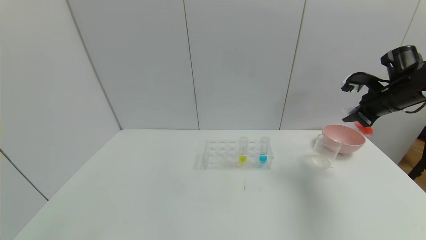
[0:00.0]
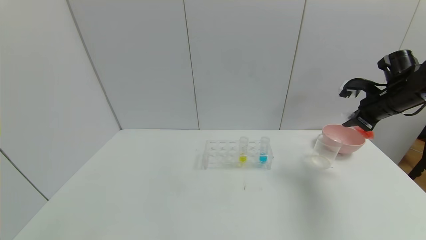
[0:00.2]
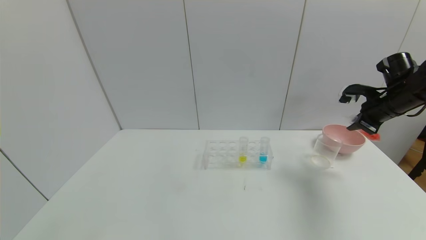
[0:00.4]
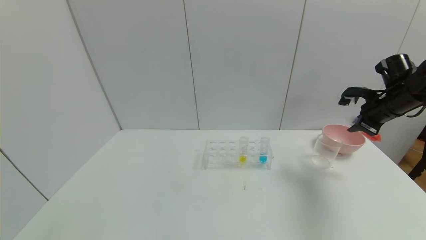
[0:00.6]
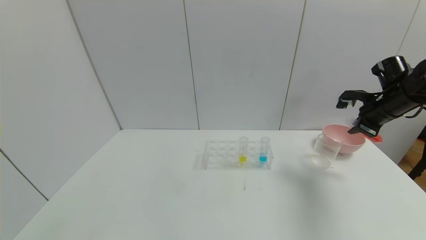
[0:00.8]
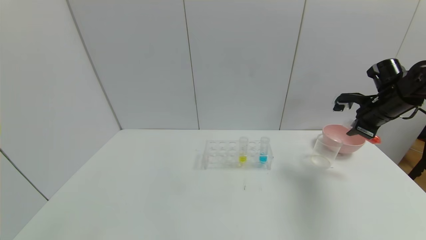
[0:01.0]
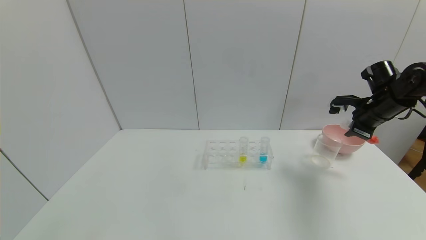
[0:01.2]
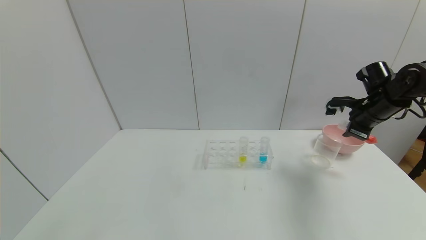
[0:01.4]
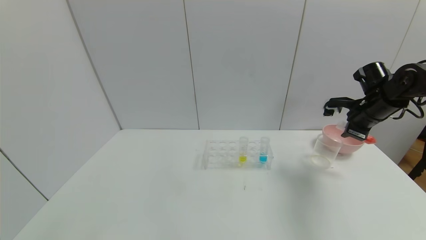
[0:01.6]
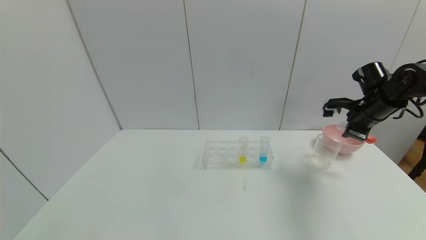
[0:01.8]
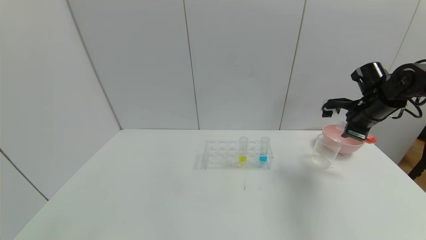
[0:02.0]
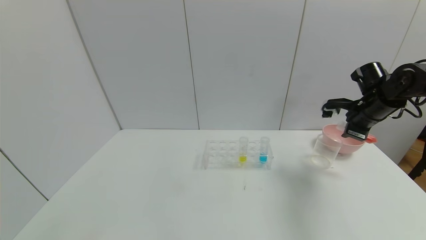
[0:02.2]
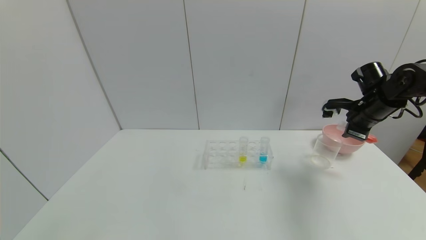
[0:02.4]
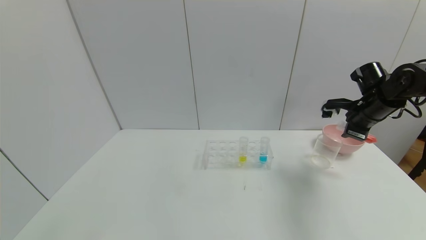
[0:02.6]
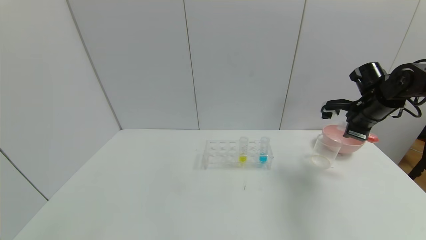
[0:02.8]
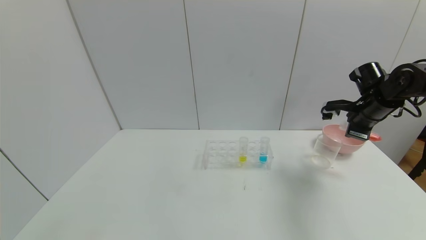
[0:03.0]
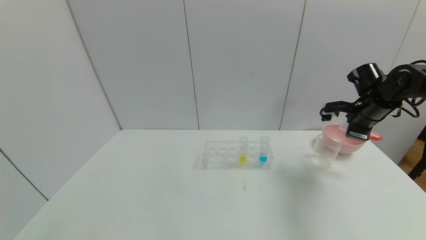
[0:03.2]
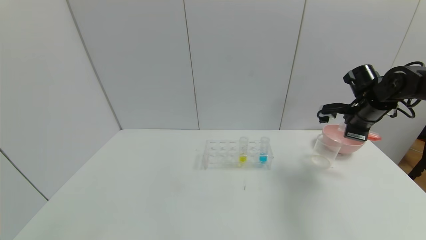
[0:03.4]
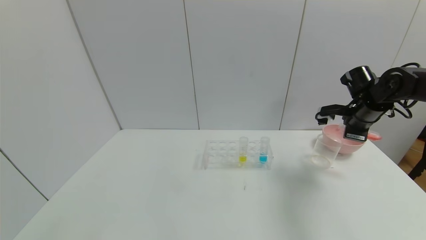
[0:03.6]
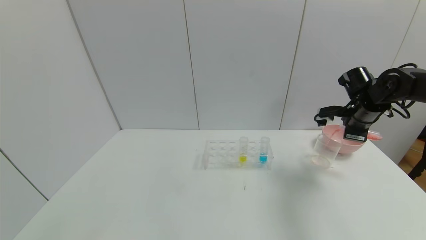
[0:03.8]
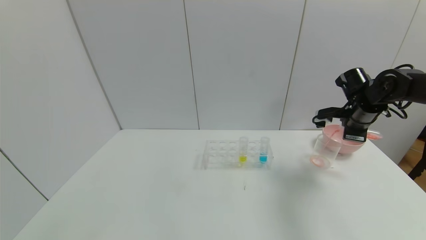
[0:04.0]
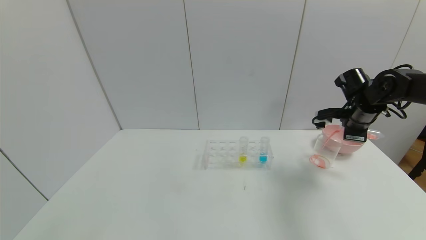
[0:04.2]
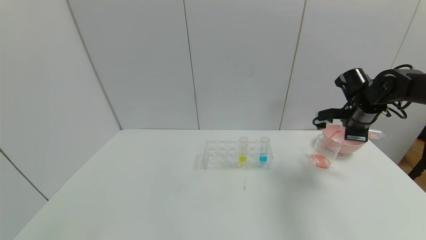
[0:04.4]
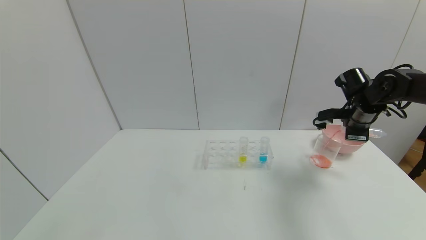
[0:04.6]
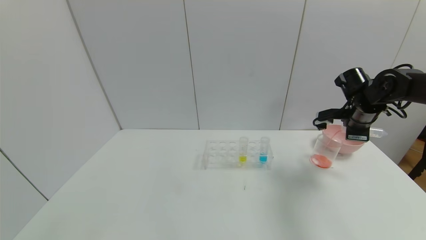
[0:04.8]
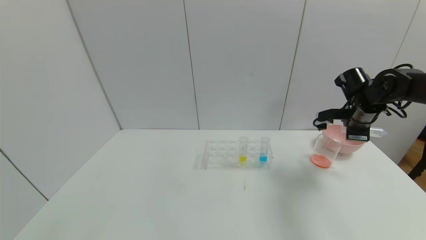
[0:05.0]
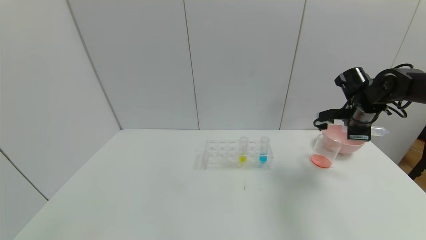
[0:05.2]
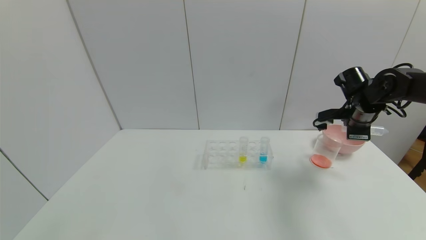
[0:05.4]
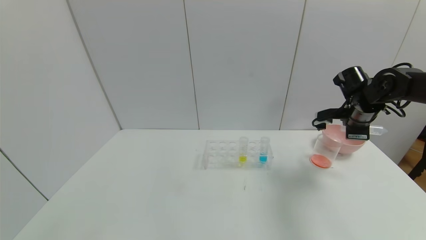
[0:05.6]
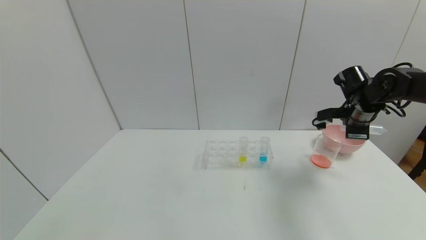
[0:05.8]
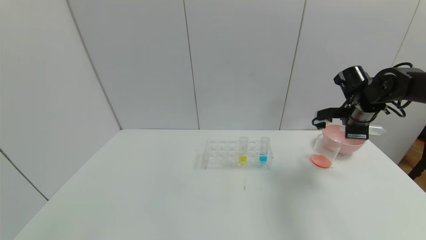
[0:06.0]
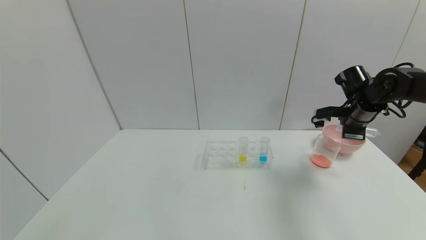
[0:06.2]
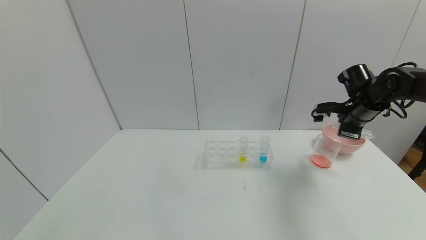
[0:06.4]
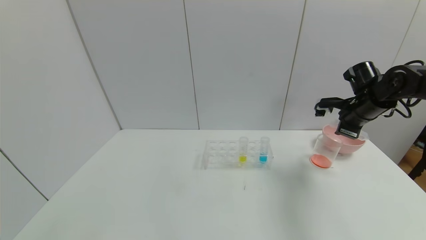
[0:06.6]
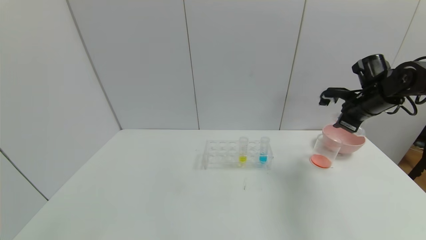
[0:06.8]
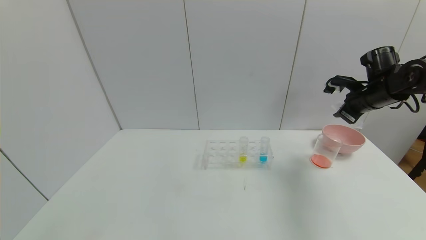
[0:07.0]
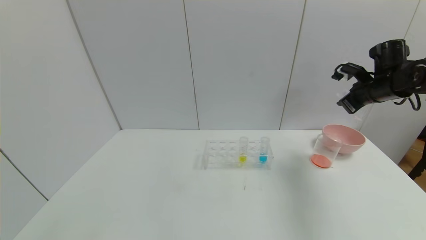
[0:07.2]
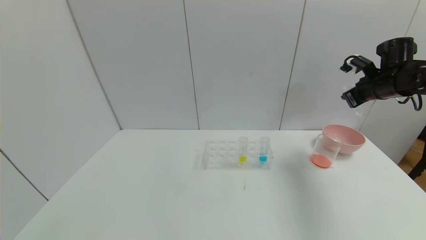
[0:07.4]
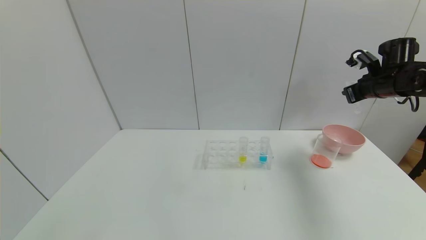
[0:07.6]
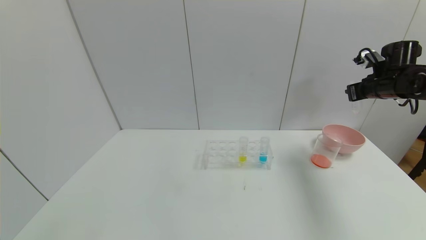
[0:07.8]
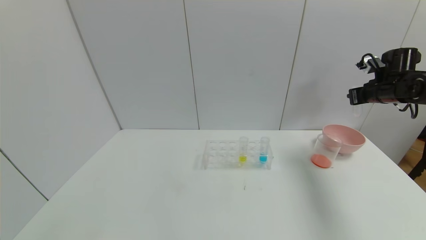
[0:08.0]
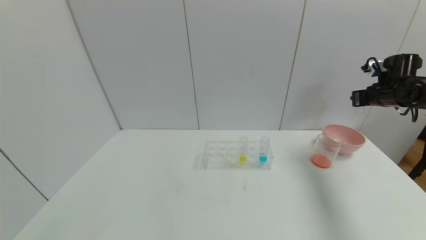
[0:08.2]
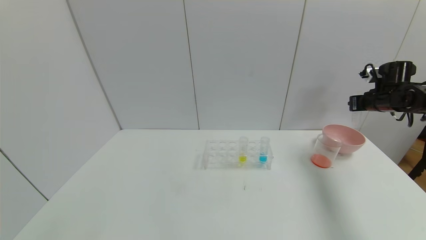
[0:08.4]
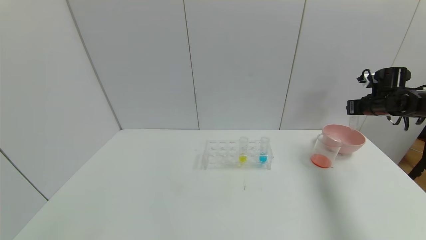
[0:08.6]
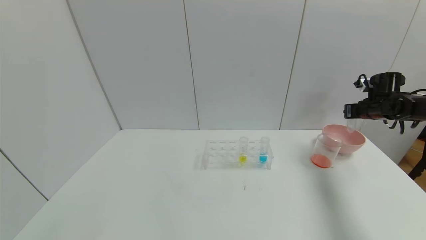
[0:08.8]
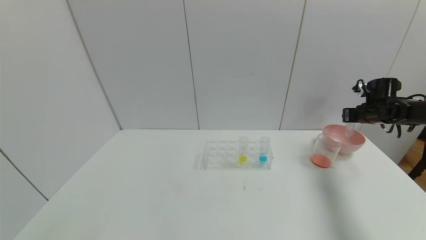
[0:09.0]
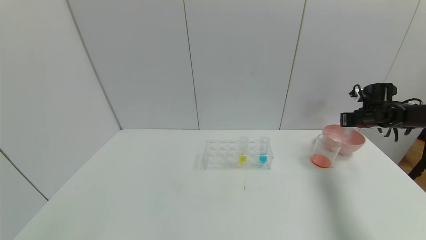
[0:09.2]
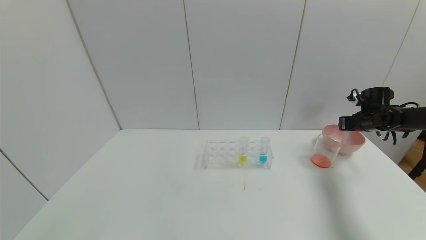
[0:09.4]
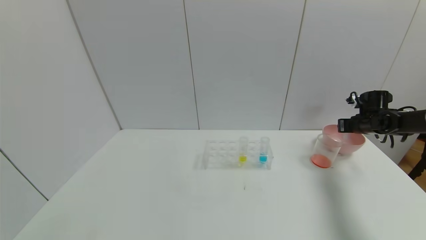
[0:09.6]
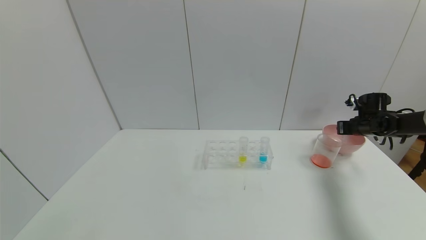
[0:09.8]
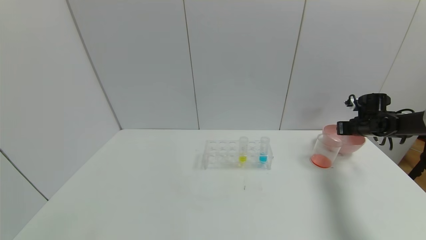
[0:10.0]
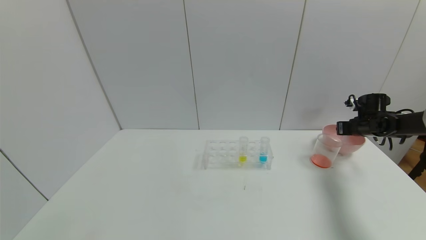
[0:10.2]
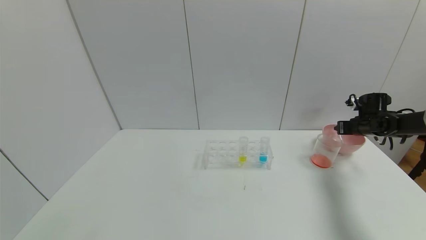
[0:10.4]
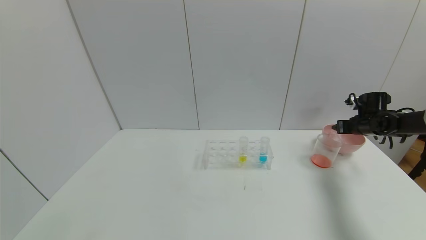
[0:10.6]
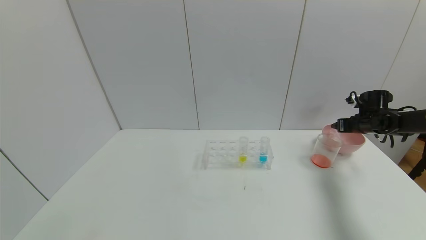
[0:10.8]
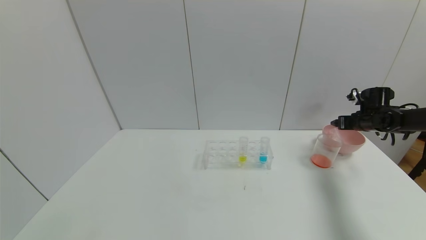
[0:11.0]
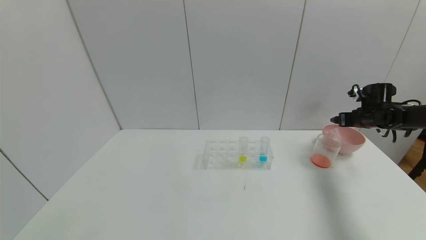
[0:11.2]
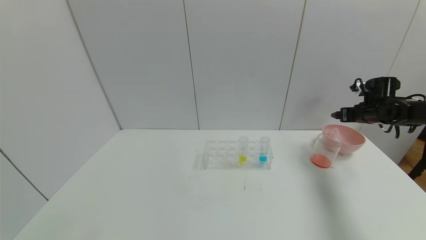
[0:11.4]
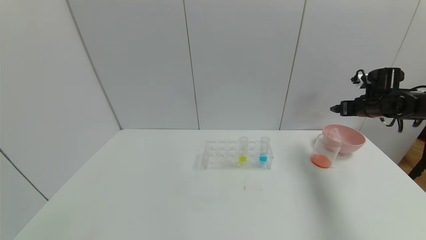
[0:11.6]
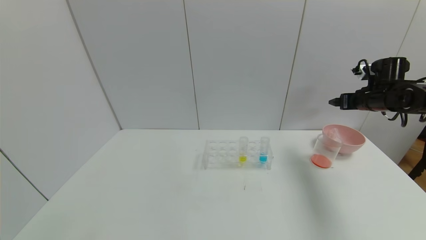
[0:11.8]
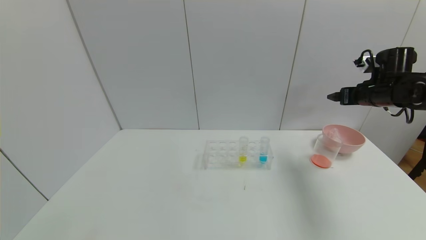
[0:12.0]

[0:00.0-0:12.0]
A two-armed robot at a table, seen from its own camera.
Task of the whole recording: pick up the test tube with yellow pigment and the test tube with red pigment by grippers and pour them into the beaker.
Step, 0:00.0 to 0:05.6: Pour the red reagent into the graduated cylinder with the right gripper.
Step, 0:05.8 to 0:10.6: Place the test tube into the bowl with the right gripper.
0:01.6 to 0:03.0: The grippers make only small movements.
0:03.0 to 0:04.4: The grippers move only a little.
0:04.4 to 0:06.0: Both grippers stay put.
0:06.0 to 0:07.6: The right gripper is displaced to the right and upward by about 10 cm.
0:07.6 to 0:09.0: The right gripper travels downward and to the right by approximately 10 cm.
0:09.0 to 0:10.4: The right gripper opens its fingers.
0:10.4 to 0:12.0: The right gripper travels upward, to the left and backward by approximately 15 cm, and opens up.

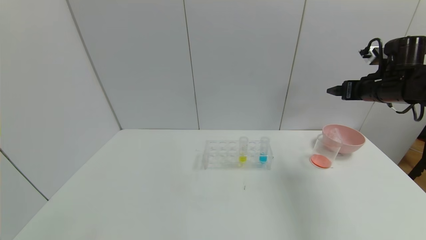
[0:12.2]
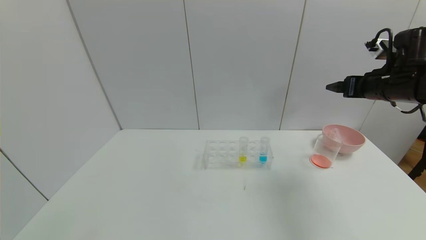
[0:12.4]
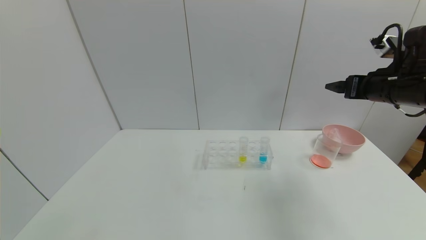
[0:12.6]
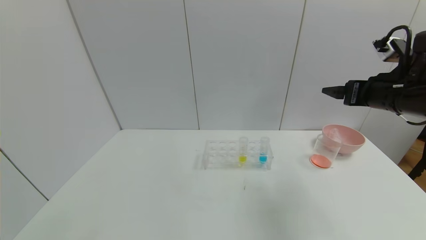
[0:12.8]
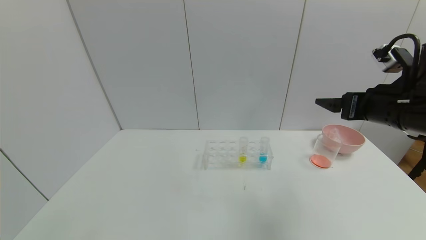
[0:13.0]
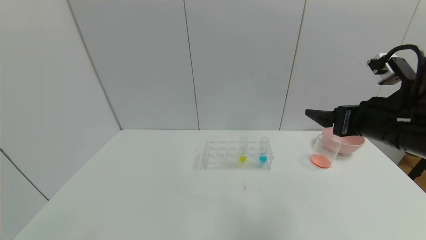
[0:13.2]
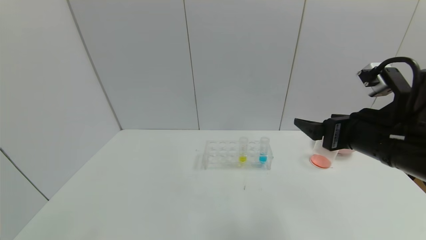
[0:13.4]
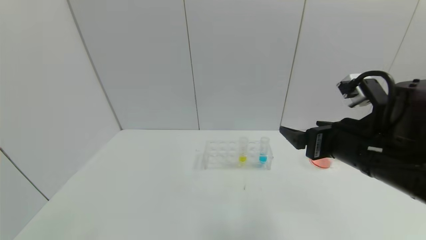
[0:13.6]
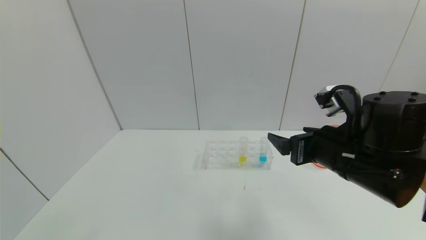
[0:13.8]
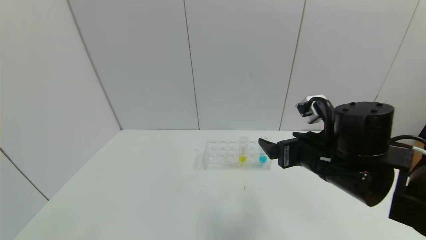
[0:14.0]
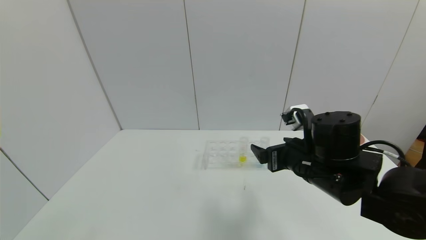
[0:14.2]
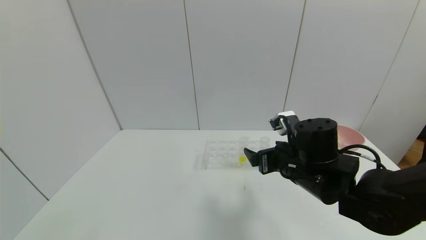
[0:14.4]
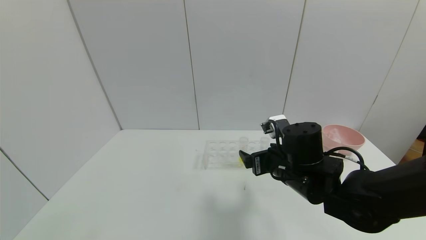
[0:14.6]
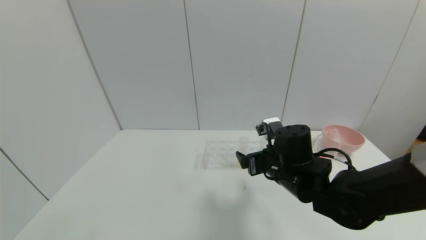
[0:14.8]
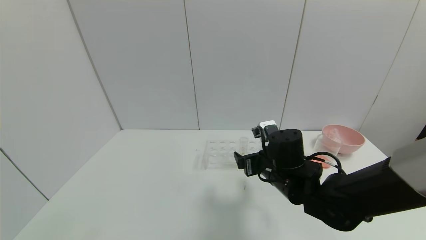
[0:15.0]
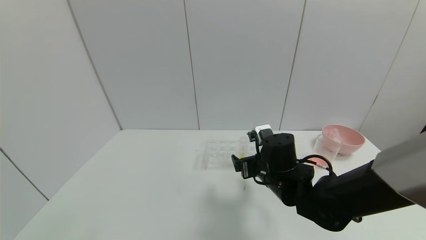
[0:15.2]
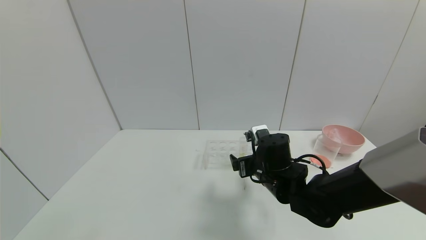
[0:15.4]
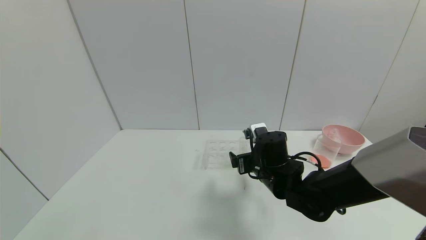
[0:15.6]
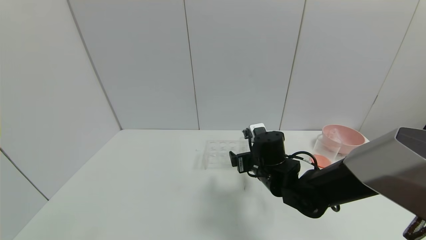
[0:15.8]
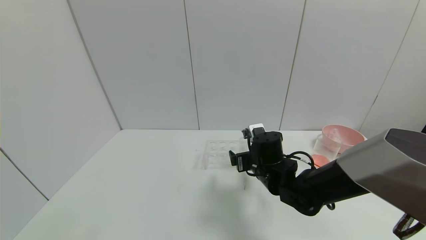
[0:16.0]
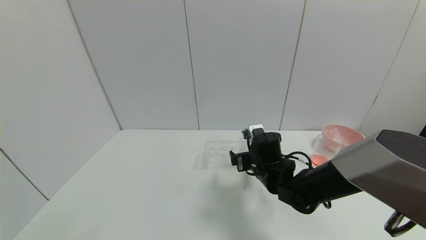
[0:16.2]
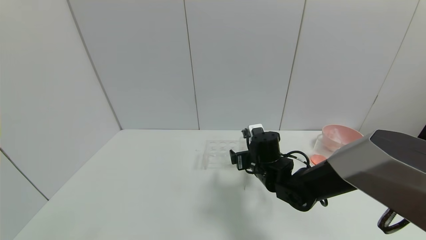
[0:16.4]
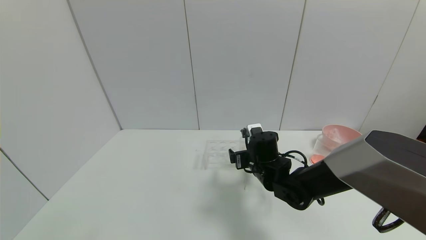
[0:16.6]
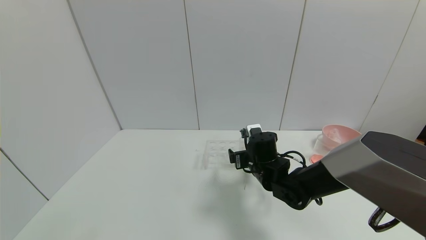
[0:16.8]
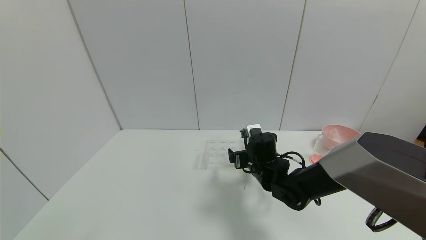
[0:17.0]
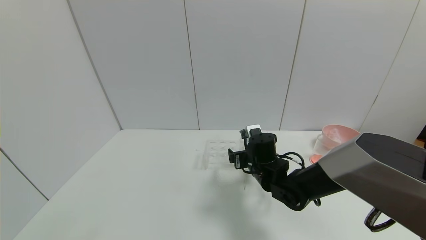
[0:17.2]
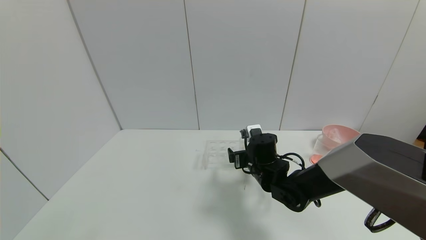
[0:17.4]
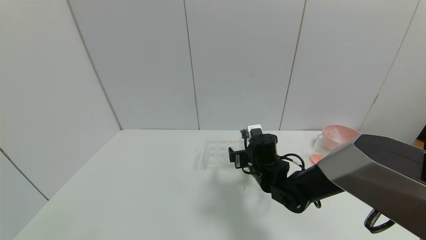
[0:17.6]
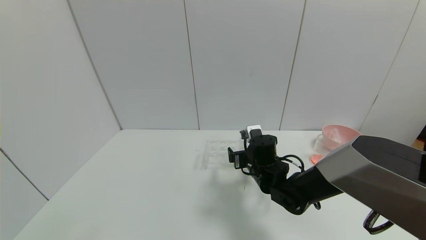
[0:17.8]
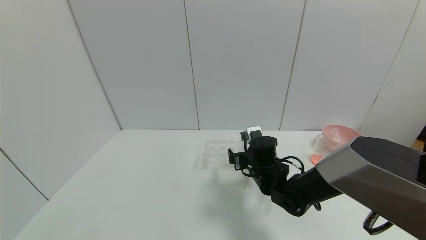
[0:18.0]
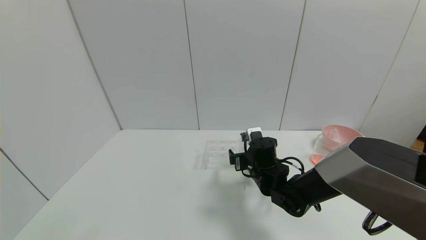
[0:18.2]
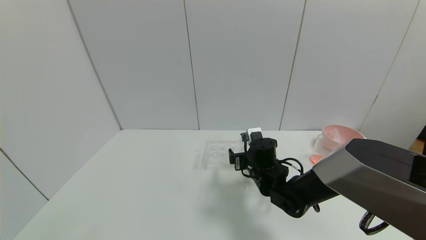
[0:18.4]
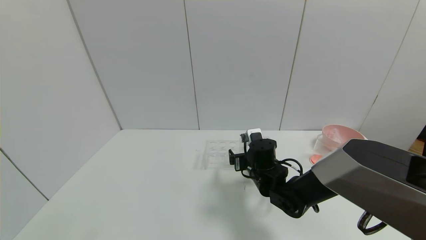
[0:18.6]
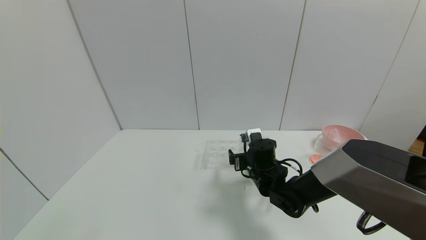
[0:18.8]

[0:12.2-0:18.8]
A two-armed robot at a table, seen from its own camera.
Task of the whole recording: pick up the test tube with yellow pigment and the test tube with red pigment by grippers and pour them into the beaker.
0:12.2 to 0:13.8: The right gripper moves to the left and backward, approximately 25 cm.
0:13.8 to 0:15.4: The right gripper heads downward, to the left and forward, covering roughly 15 cm.
0:15.4 to 0:17.2: The right gripper shifts by approximately 5 cm.
0:17.2 to 0:18.8: Both grippers stay about where they are.
